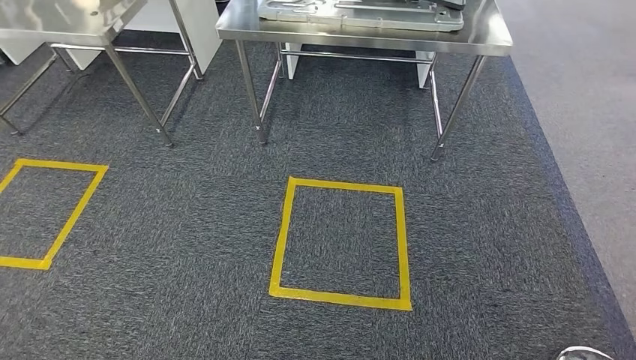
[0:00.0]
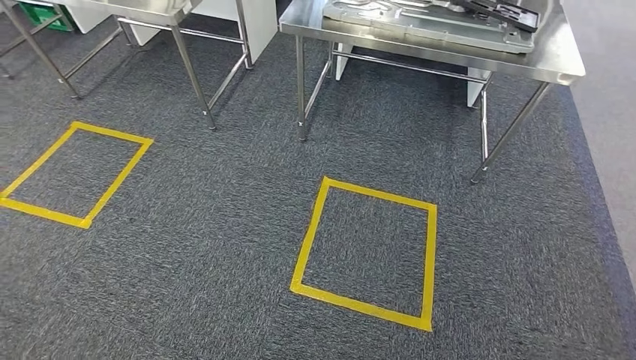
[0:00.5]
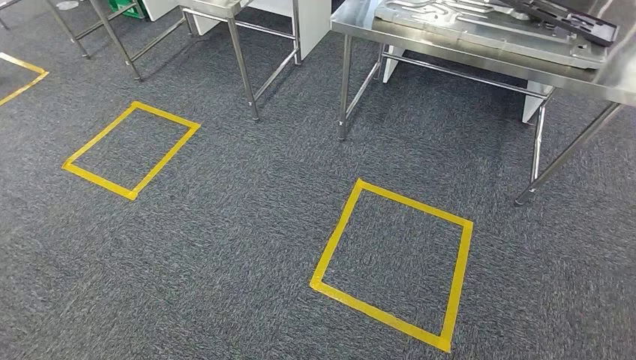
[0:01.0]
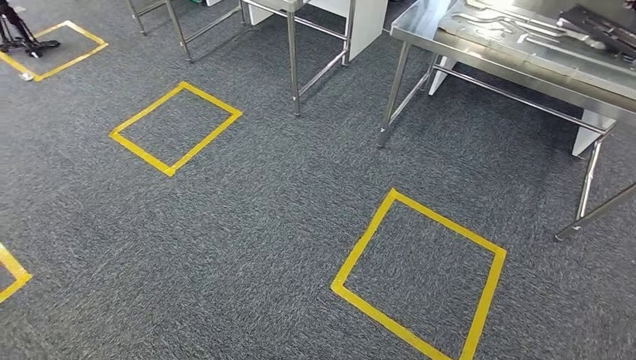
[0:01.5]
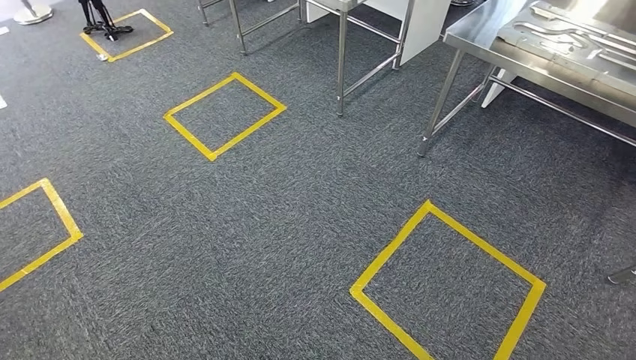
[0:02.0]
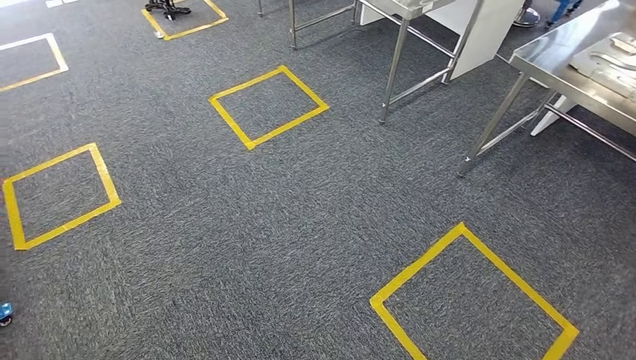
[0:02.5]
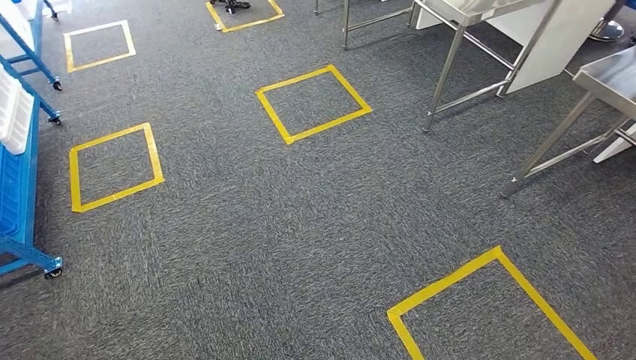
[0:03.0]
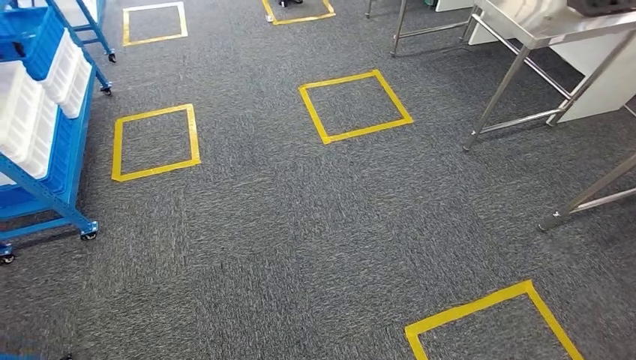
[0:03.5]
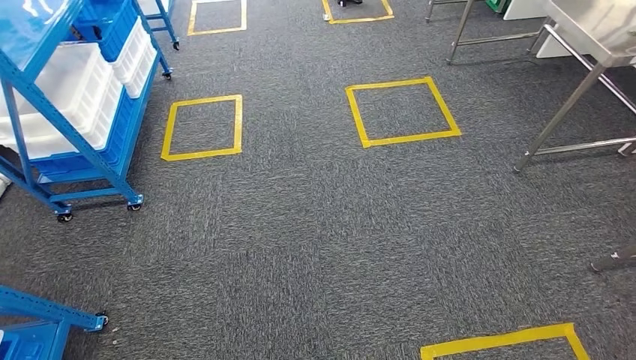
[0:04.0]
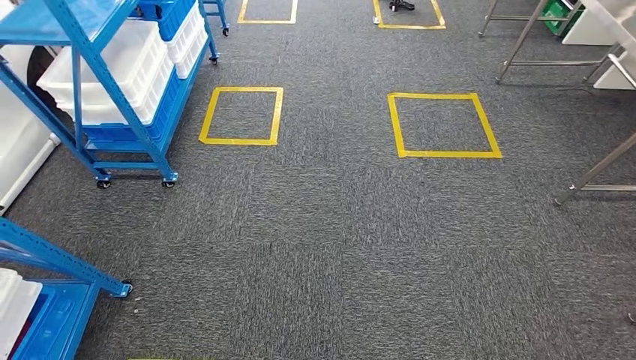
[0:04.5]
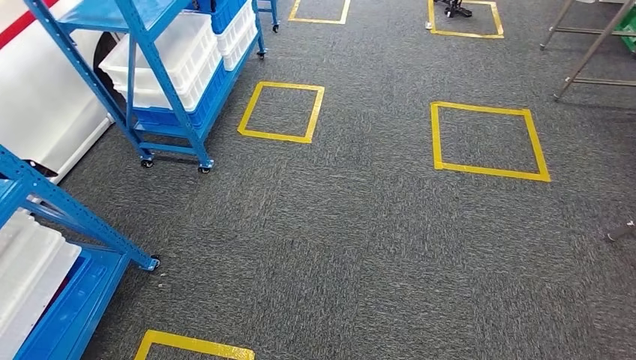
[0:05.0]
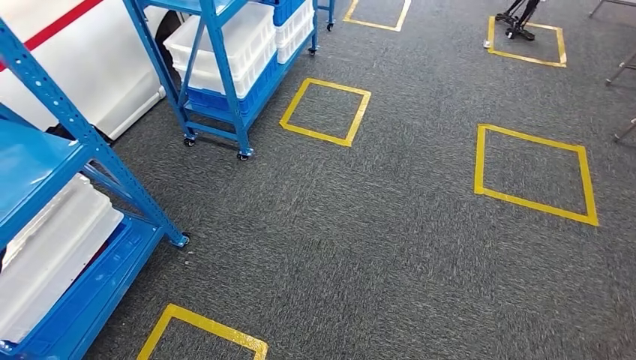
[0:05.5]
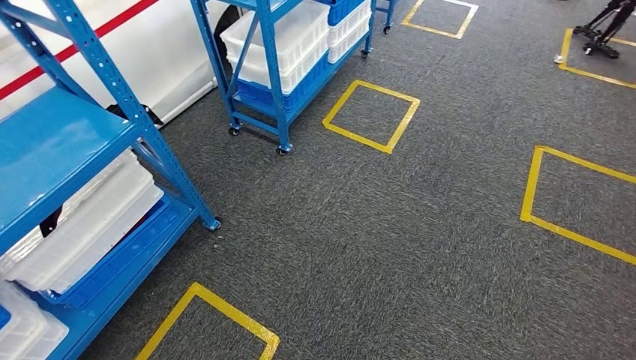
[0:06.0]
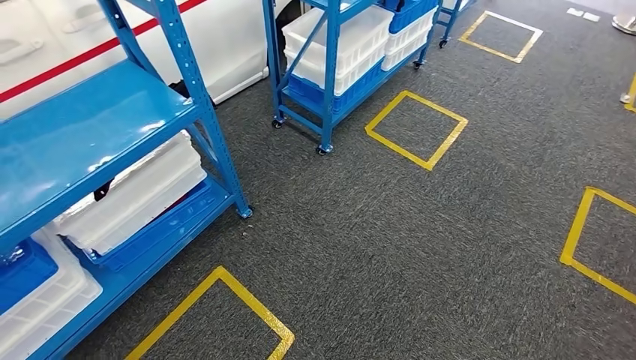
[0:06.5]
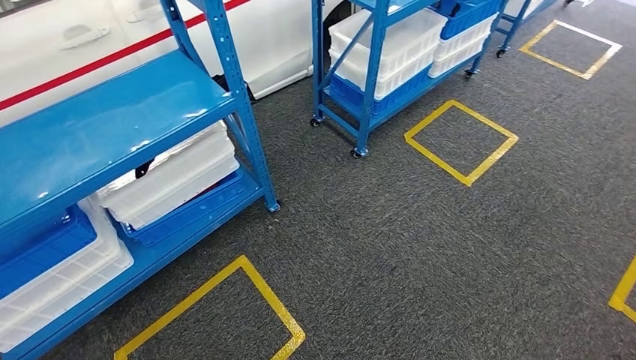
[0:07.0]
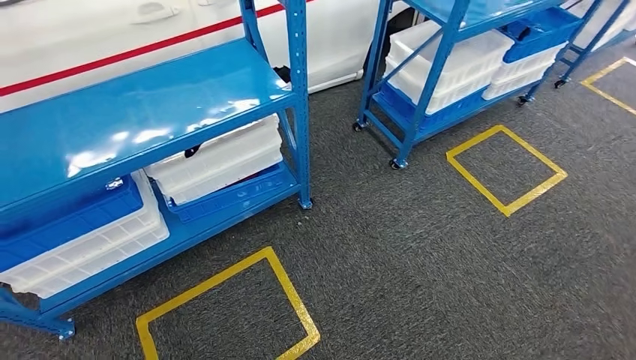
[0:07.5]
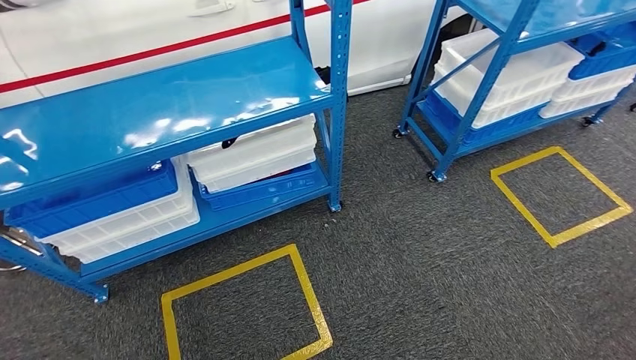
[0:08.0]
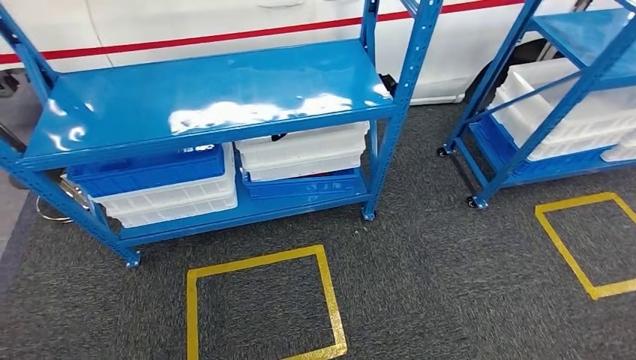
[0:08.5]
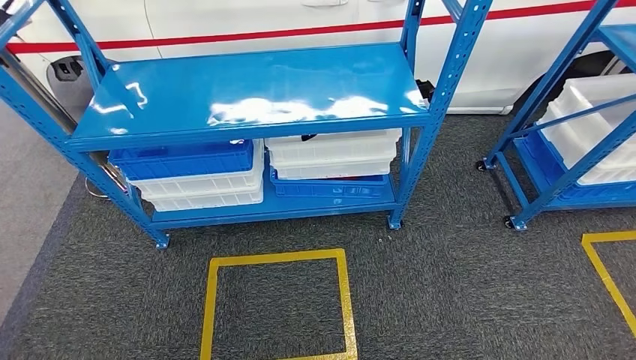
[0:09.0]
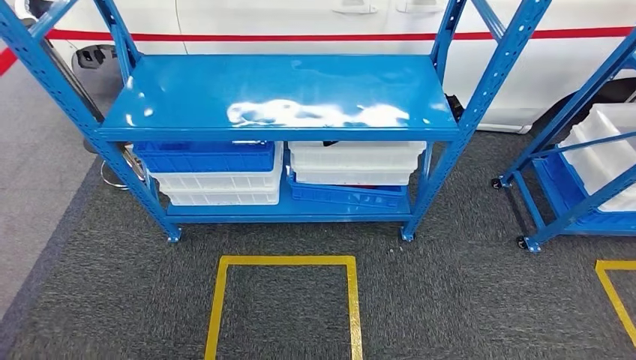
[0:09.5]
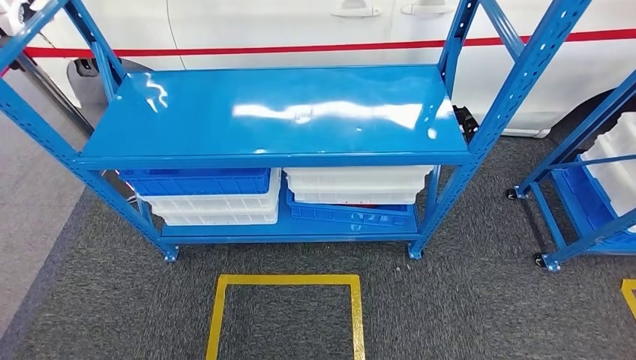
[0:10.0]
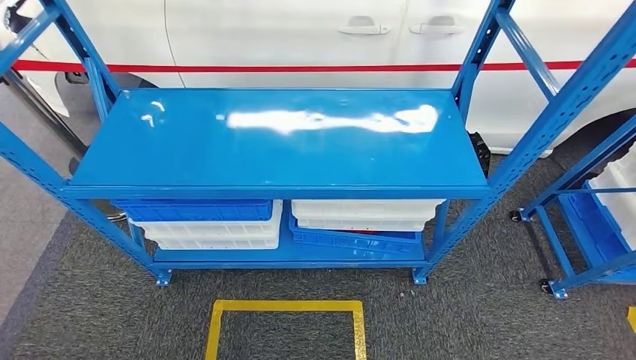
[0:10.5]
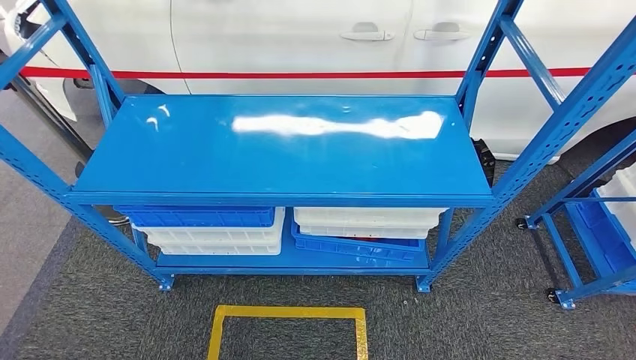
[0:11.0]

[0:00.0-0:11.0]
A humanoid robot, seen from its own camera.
Step, 0:00.0 to 0:11.0: Return to the initial position at the shelf.

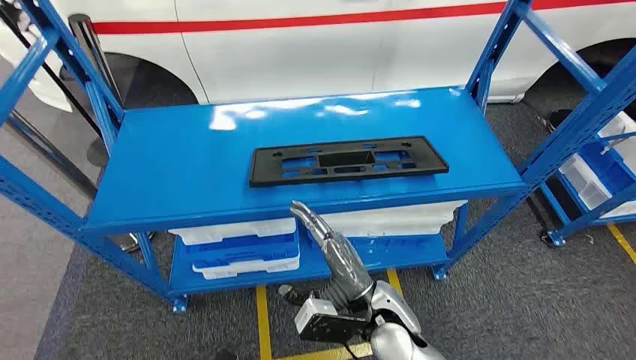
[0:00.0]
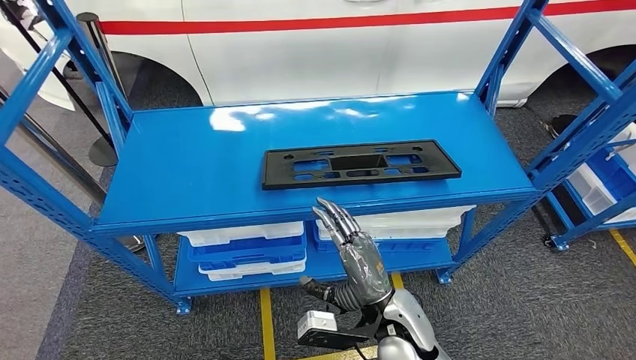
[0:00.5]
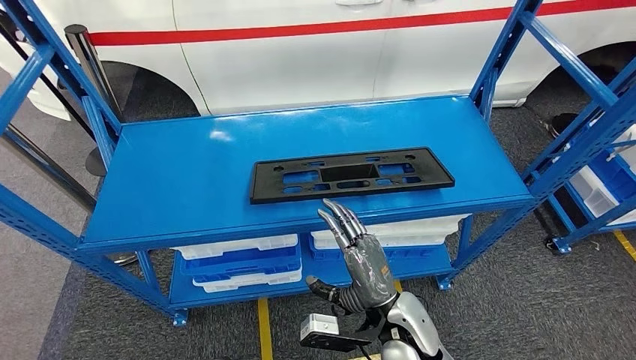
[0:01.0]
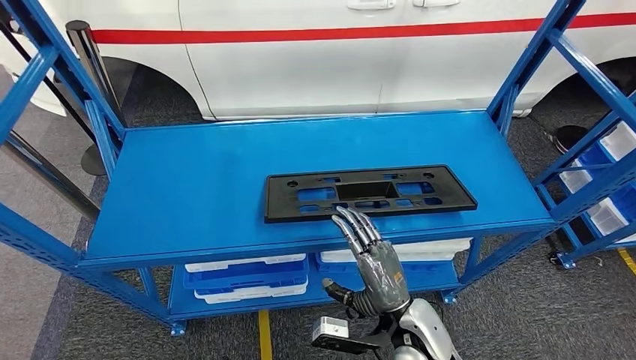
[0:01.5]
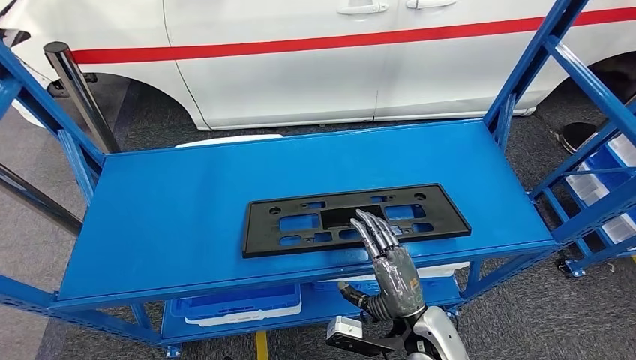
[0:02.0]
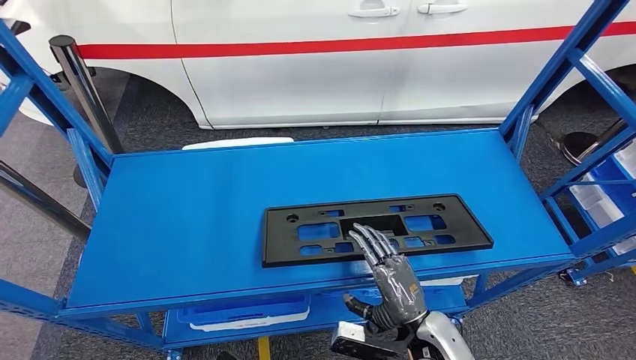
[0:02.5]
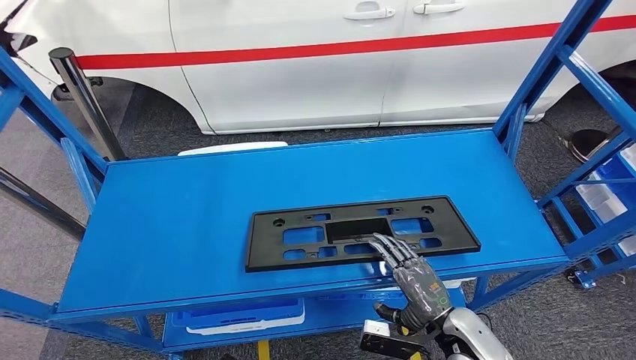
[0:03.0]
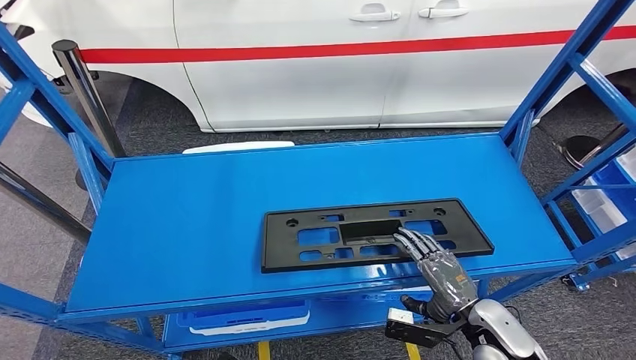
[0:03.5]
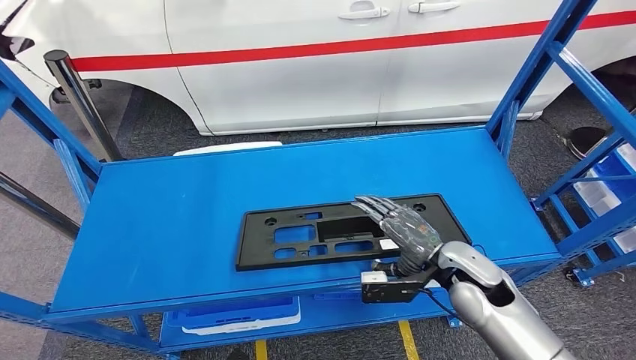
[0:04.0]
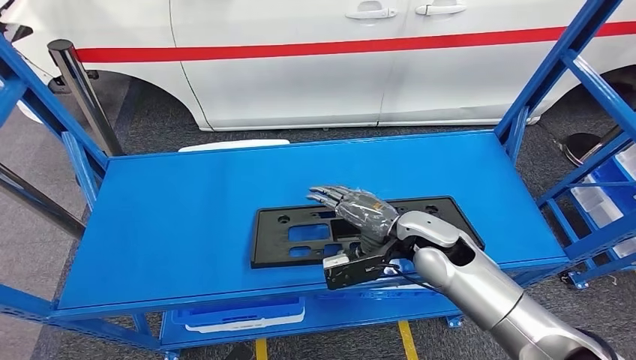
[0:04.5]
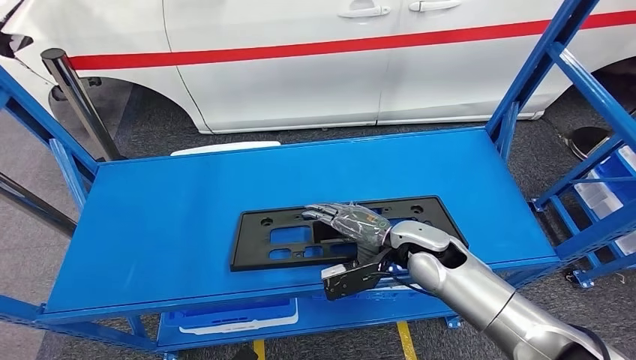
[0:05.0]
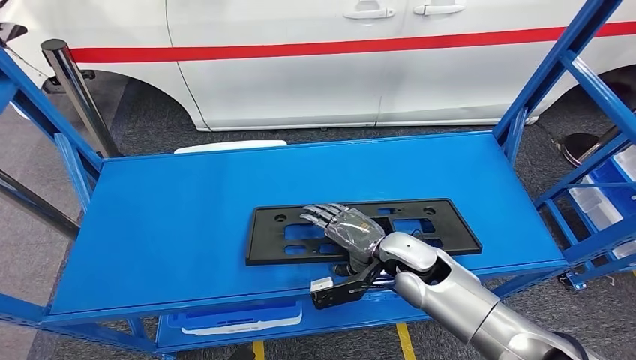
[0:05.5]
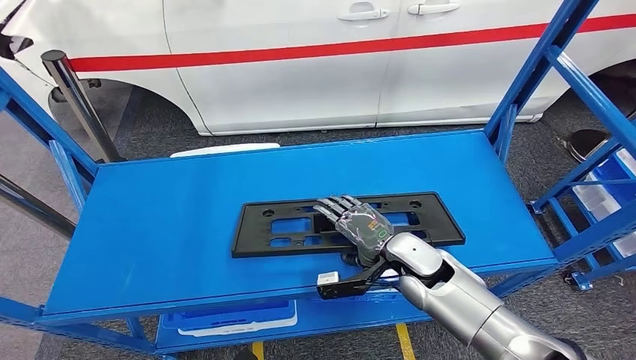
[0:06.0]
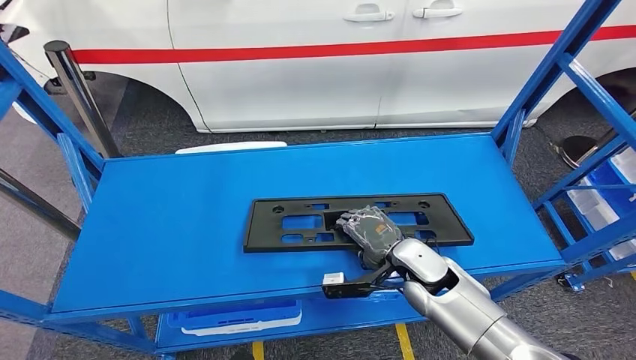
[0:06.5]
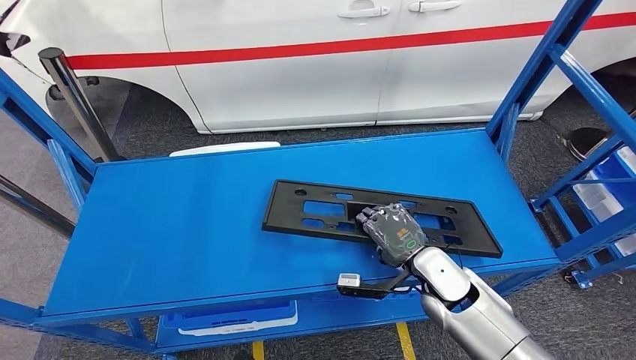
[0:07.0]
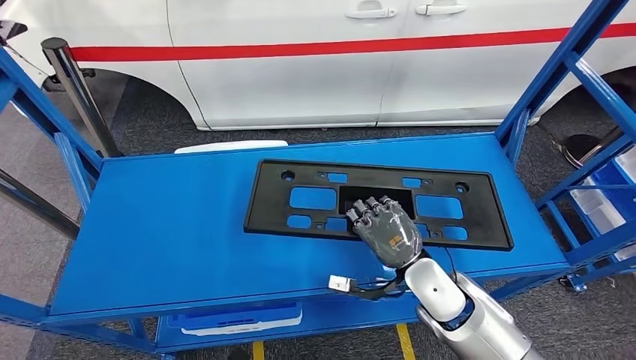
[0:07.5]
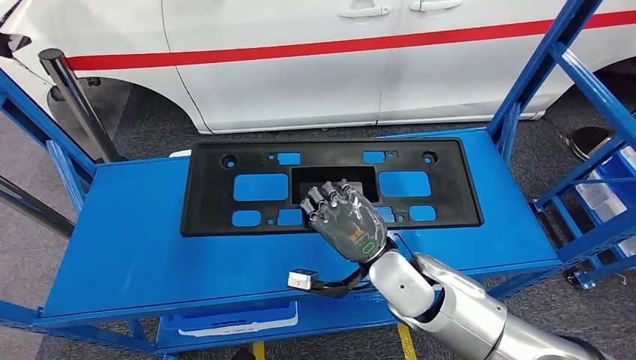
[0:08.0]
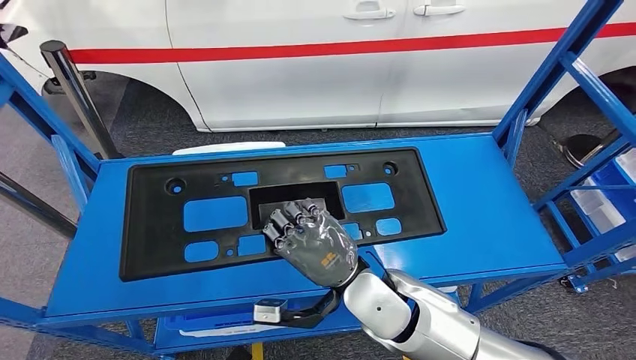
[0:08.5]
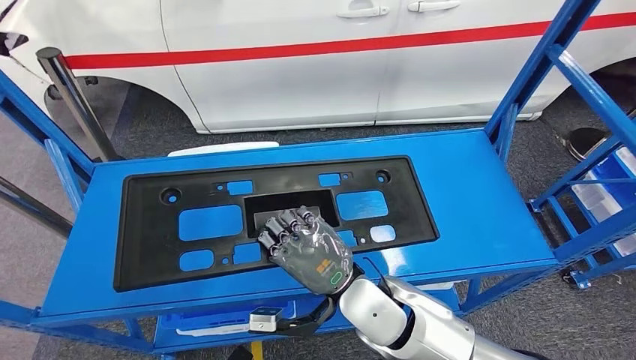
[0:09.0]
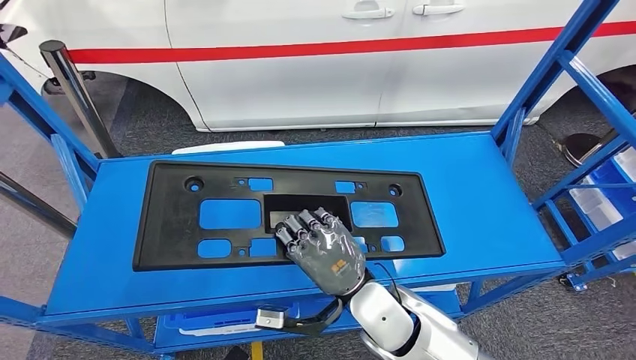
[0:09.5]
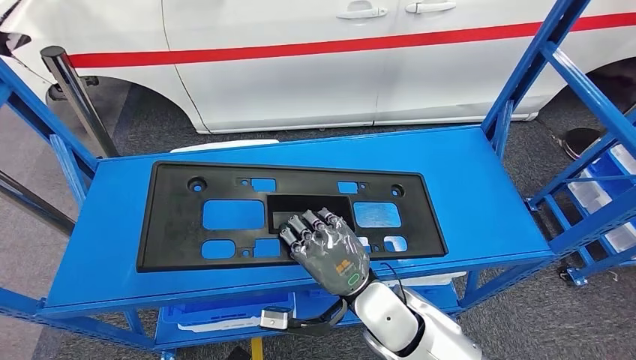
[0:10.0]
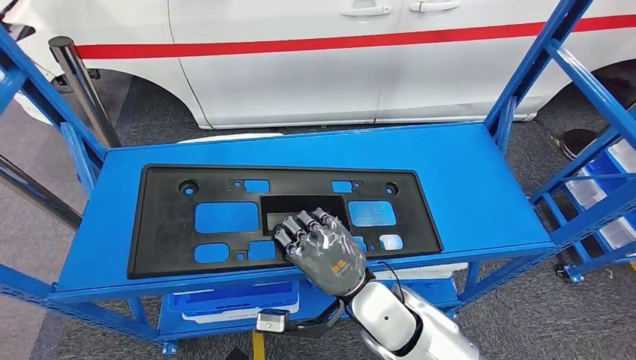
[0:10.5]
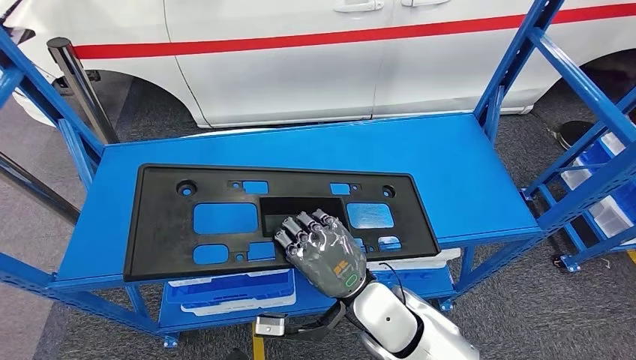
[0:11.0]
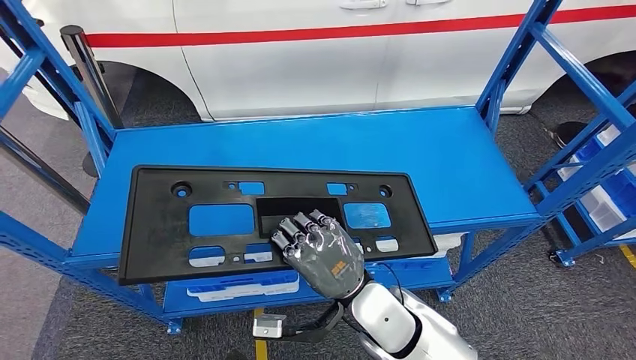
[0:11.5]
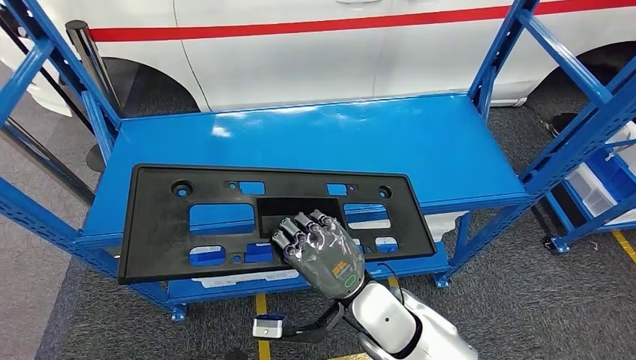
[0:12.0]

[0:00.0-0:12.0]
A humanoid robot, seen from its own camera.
Step, 0:00.0 to 0:09.0: Pick up the large material from the shelf.
0:04.0 to 0:06.0: The right hand is displaced to the left by roughly 10 cm.
